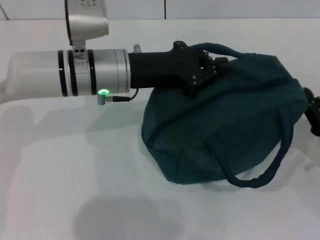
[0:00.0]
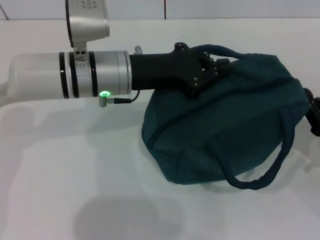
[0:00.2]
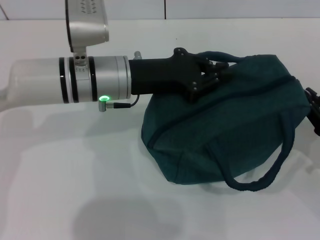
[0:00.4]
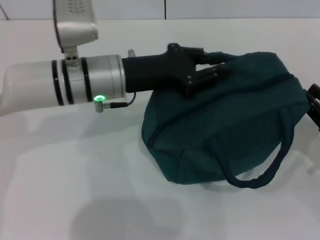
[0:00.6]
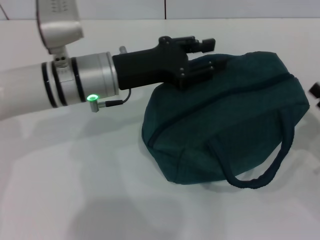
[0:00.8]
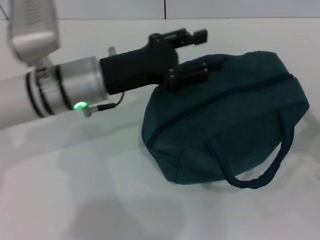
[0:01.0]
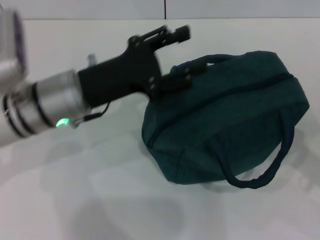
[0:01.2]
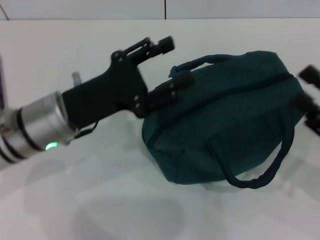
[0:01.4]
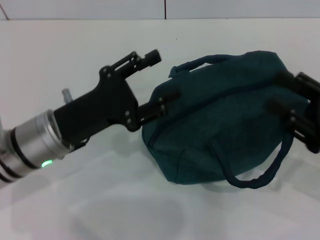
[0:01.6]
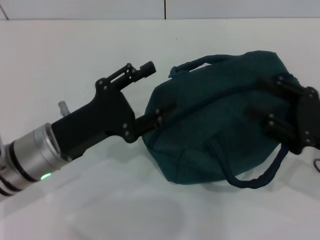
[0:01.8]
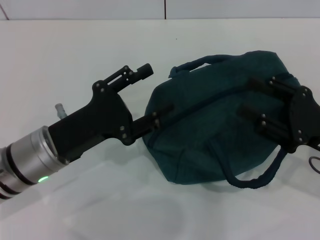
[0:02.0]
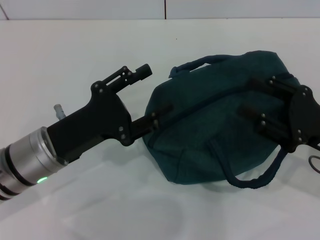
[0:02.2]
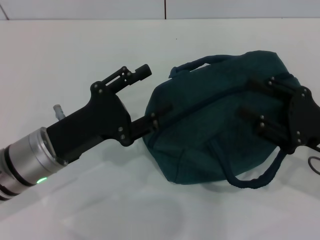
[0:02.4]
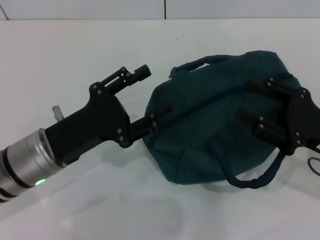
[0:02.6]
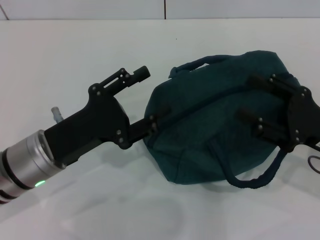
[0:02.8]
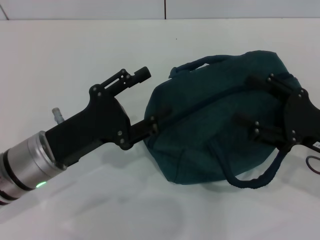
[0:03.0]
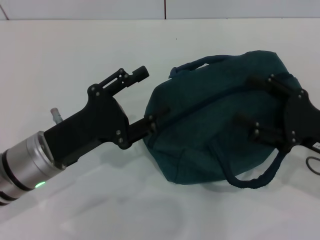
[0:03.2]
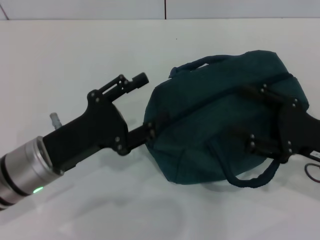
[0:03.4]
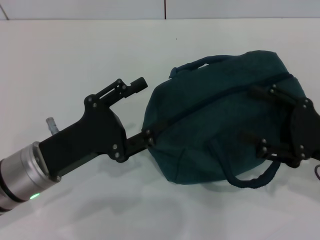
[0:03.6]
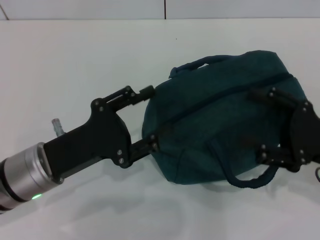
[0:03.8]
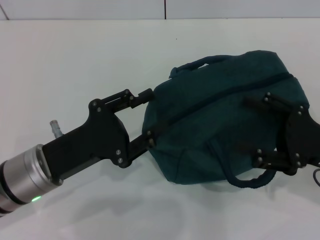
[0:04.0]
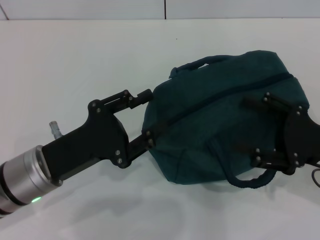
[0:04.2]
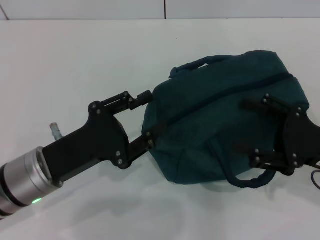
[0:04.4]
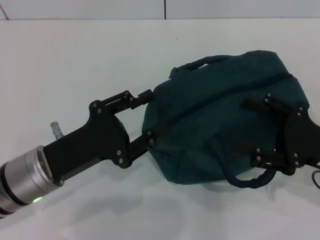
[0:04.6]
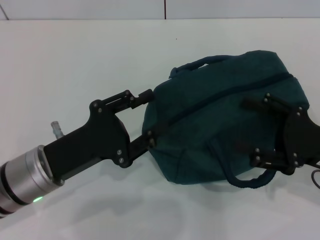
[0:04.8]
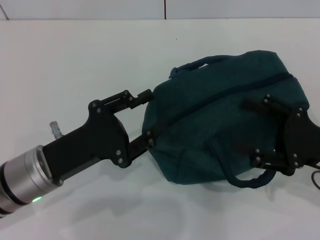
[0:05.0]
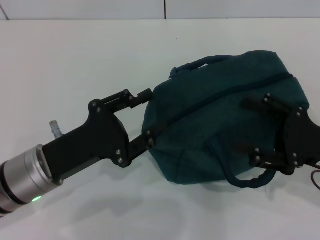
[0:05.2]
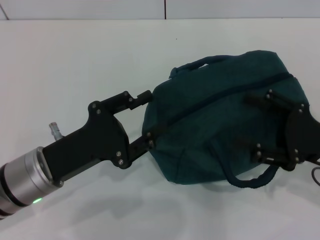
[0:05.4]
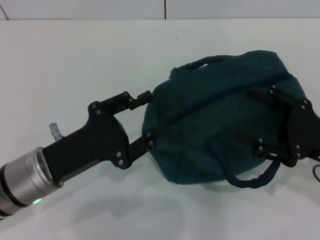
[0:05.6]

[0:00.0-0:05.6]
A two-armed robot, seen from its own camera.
0:00.0 to 0:01.4: The right gripper travels upward by approximately 5 cm, and opens, while the left gripper is displaced backward and to the left by roughly 10 cm, and opens its fingers.
0:01.4 to 0:02.8: The left gripper ends up some 5 cm from where it was.
0:02.8 to 0:04.2: The grippers make only small movements.
0:04.2 to 0:05.6: The two grippers keep their place.
